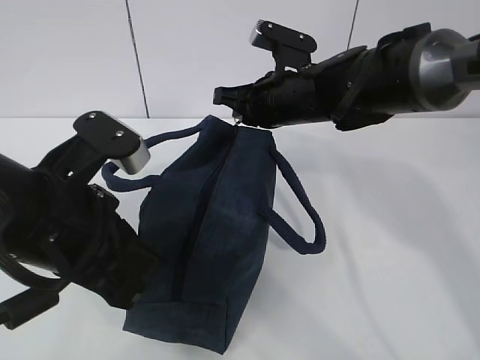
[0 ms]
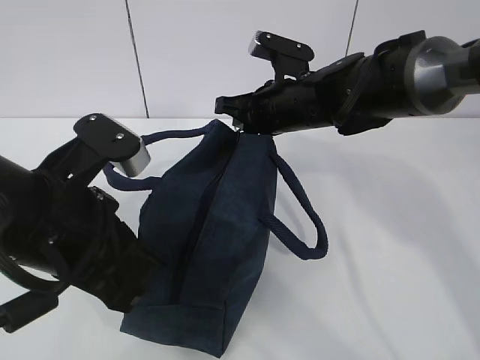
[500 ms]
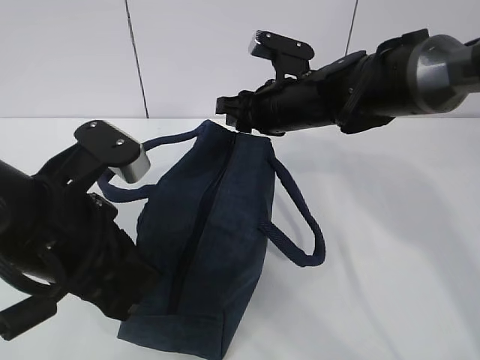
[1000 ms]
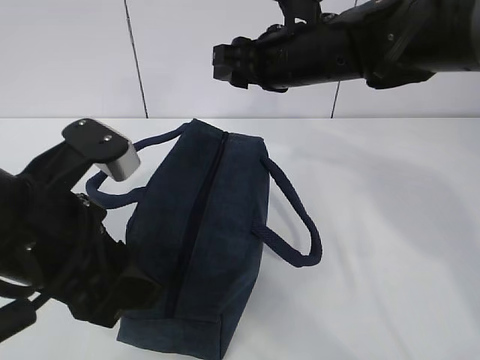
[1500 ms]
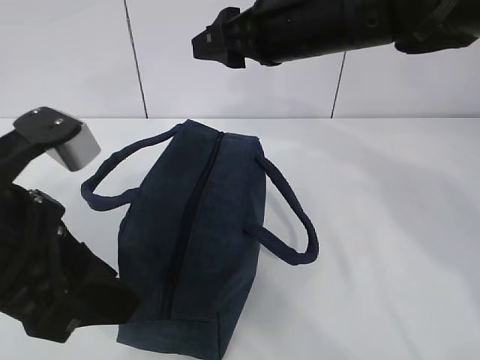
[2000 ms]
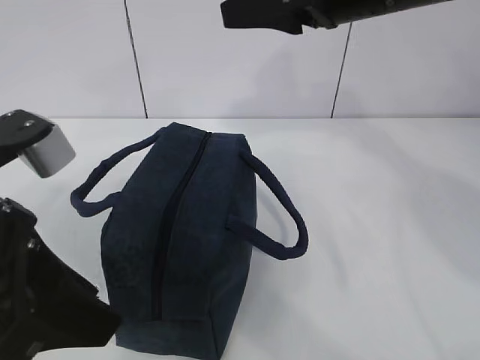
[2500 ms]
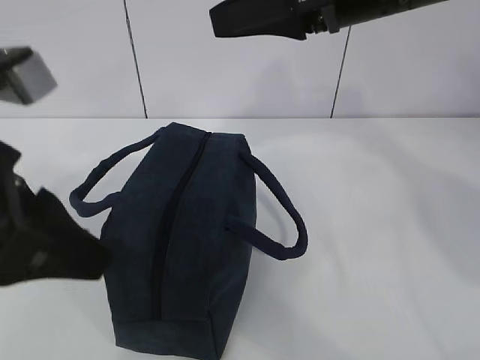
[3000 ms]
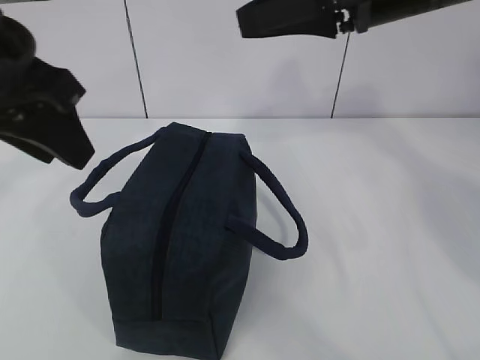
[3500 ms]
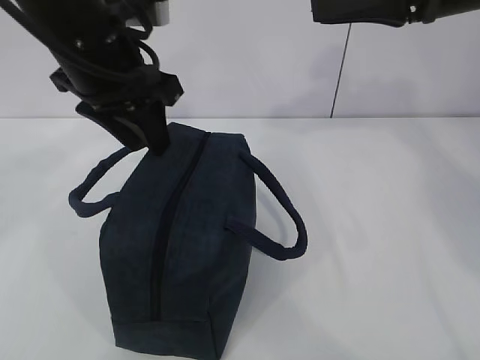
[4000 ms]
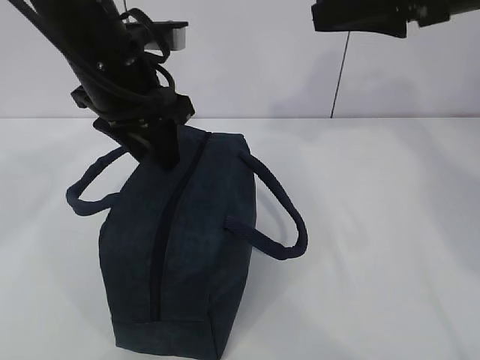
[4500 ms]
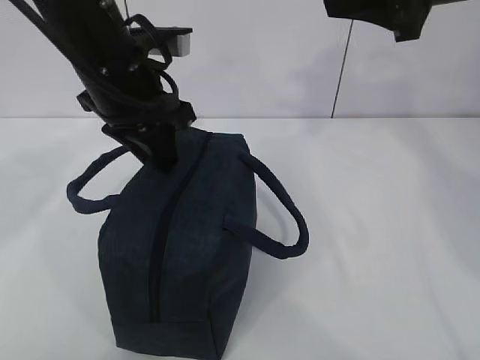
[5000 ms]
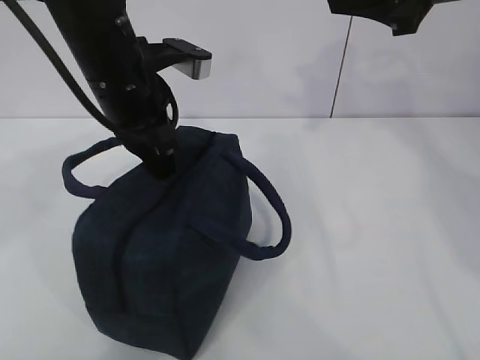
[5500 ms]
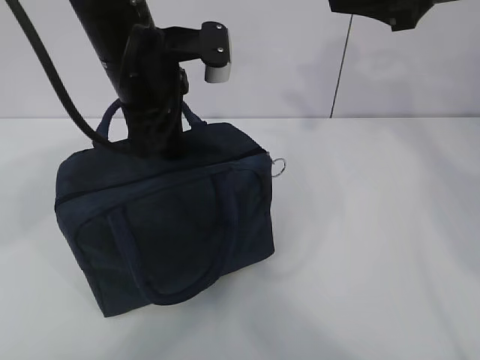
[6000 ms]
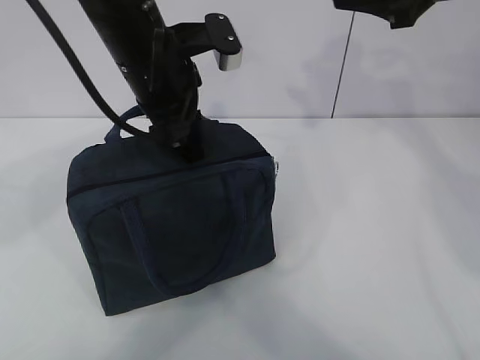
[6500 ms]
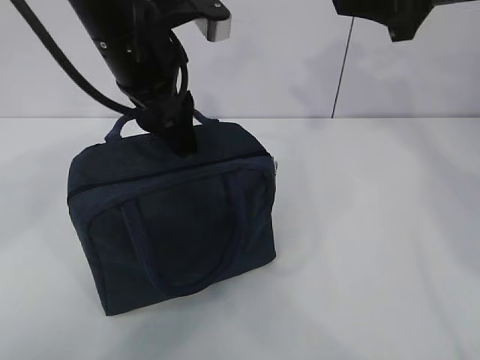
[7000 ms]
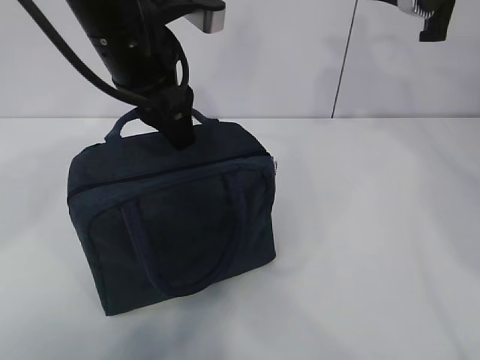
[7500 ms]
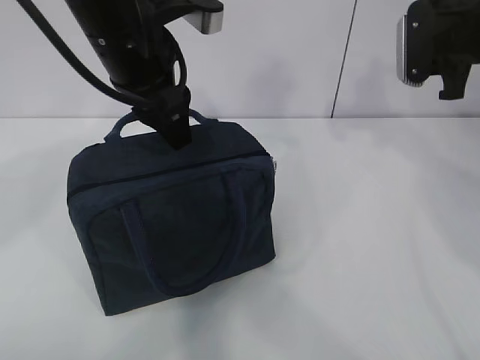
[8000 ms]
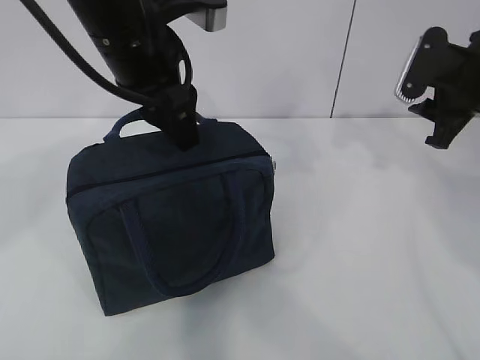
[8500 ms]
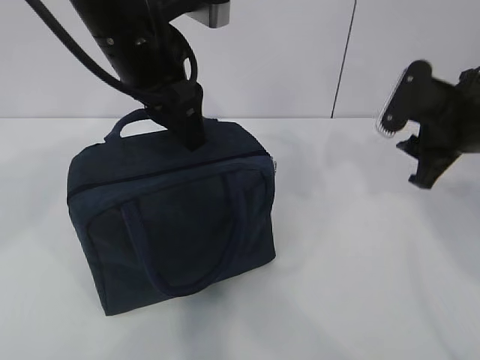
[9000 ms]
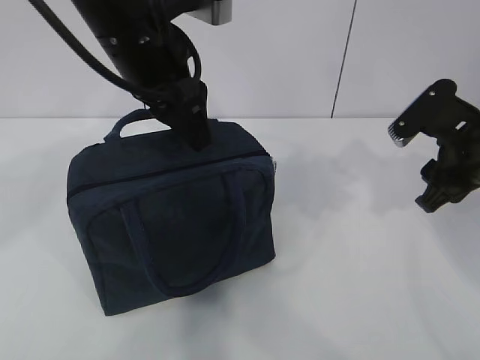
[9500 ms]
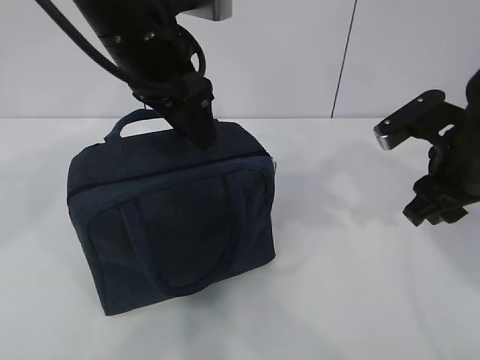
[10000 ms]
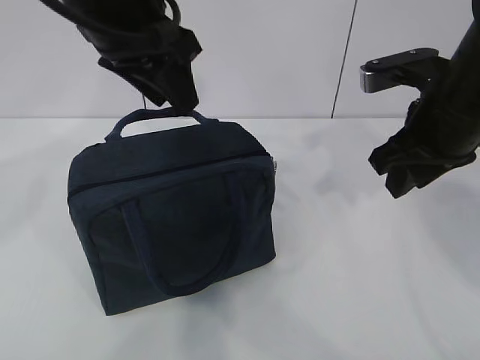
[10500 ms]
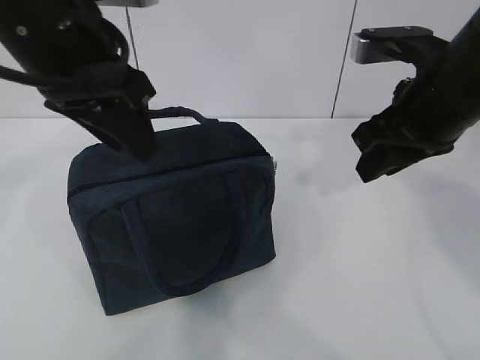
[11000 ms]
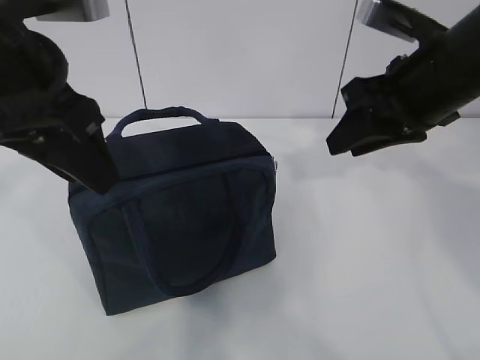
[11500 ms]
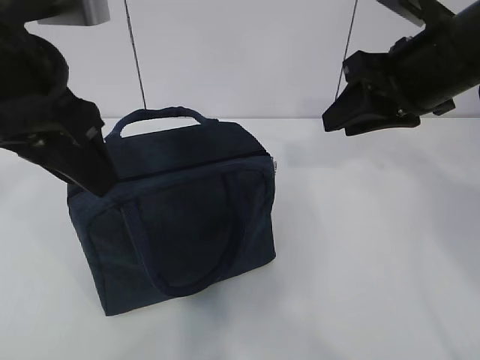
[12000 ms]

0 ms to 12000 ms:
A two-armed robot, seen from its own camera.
0 ms to 2000 ms: The right gripper shifts some 10 cm upward, and opens up. The left gripper ends up approximately 5 cm from where it was, and opens up.
2000 ms to 4000 ms: The left gripper shifts about 15 cm forward. The right gripper shifts some 15 cm to the right and upward.
4000 ms to 6000 ms: The left gripper closes up.
6000 ms to 8000 ms: The right gripper is displaced downward and to the right by approximately 10 cm. The left gripper opens its fingers.
8000 ms to 10000 ms: The right gripper travels backward and downward by roughly 15 cm.
10000 ms to 12000 ms: The right gripper is displaced upward by roughly 10 cm. Meanwhile the left gripper travels backward and to the left by about 10 cm.

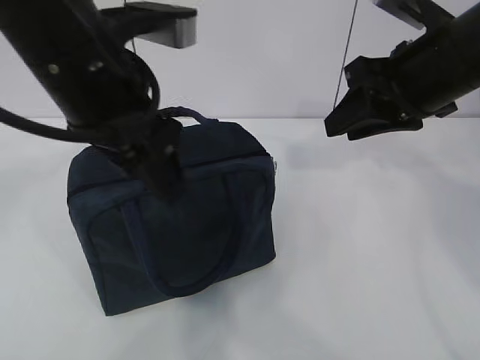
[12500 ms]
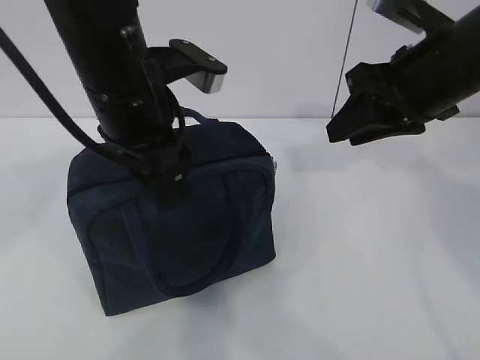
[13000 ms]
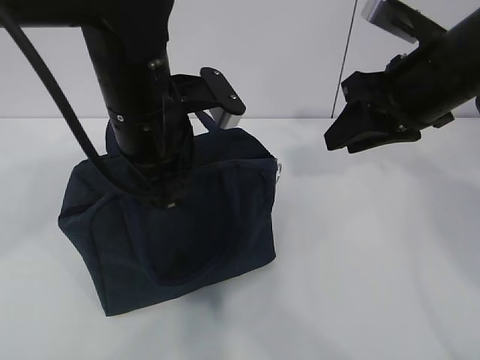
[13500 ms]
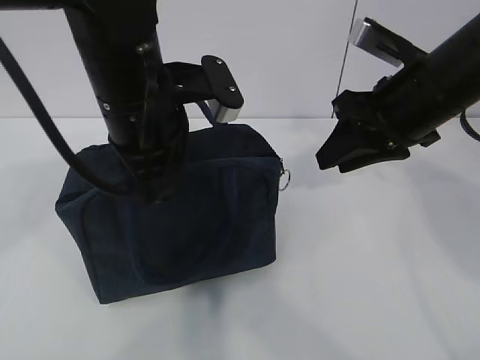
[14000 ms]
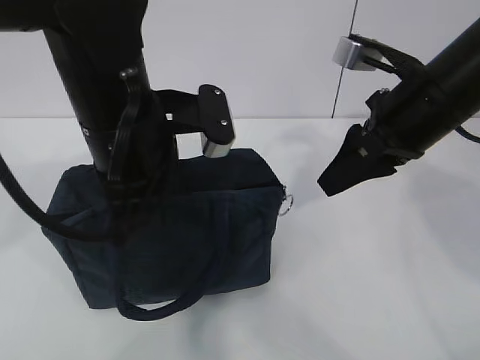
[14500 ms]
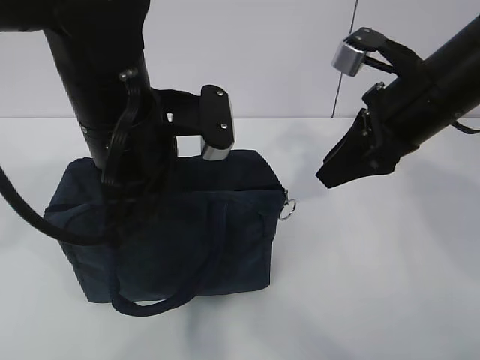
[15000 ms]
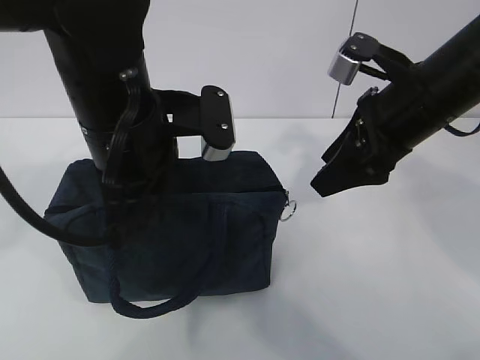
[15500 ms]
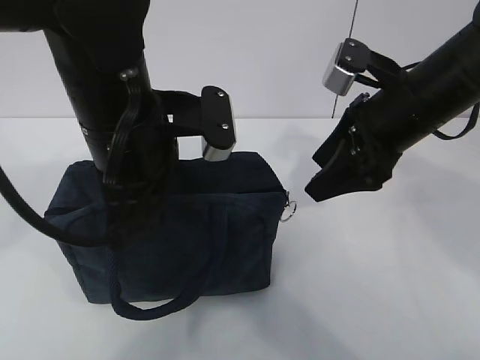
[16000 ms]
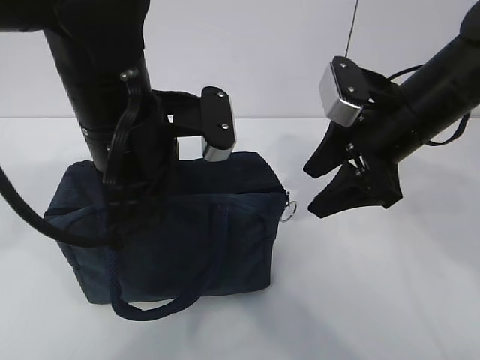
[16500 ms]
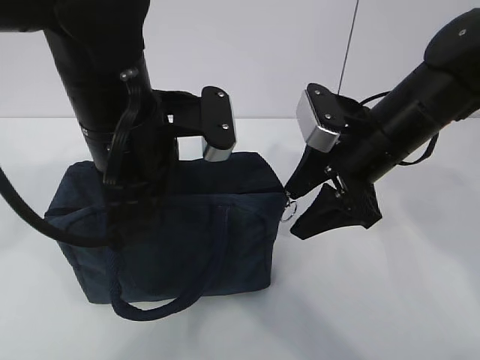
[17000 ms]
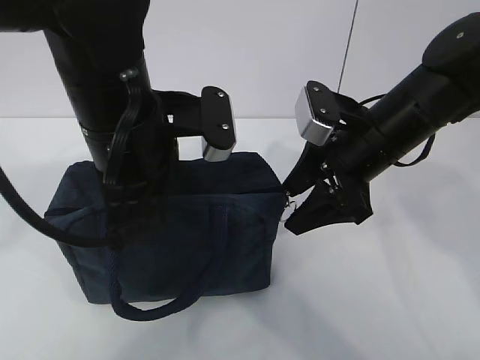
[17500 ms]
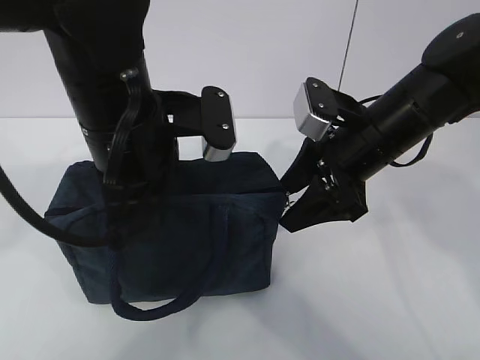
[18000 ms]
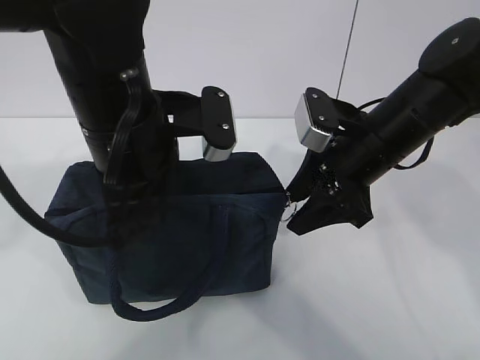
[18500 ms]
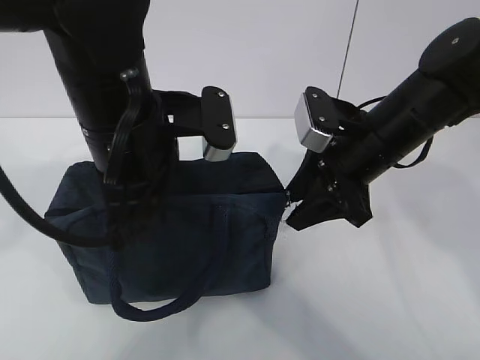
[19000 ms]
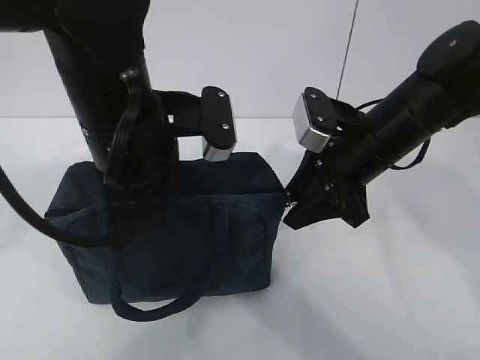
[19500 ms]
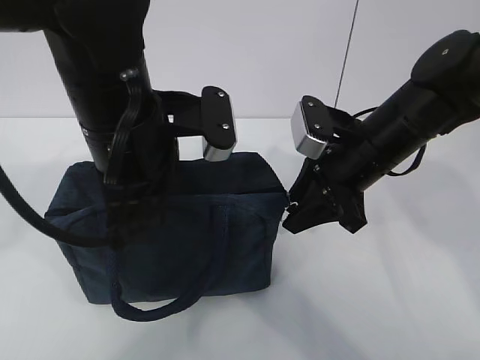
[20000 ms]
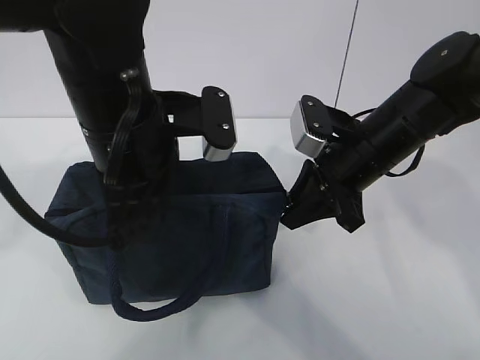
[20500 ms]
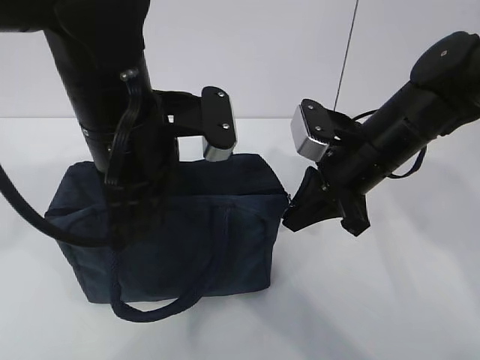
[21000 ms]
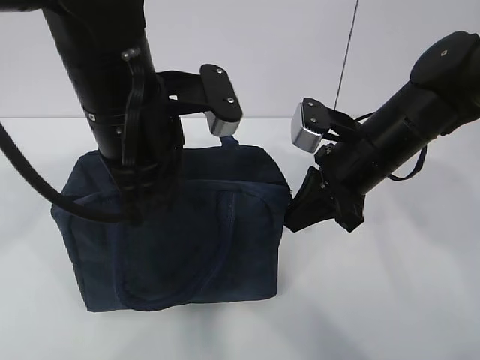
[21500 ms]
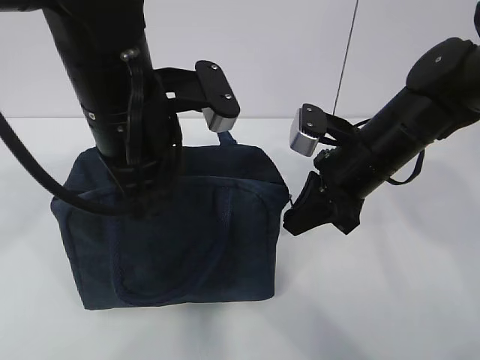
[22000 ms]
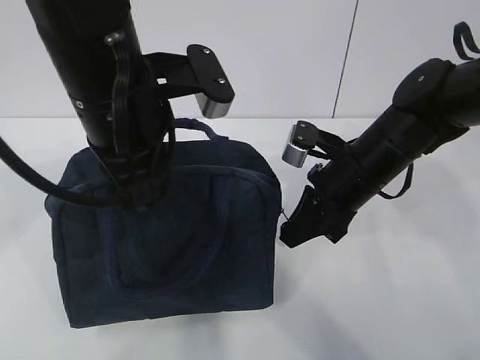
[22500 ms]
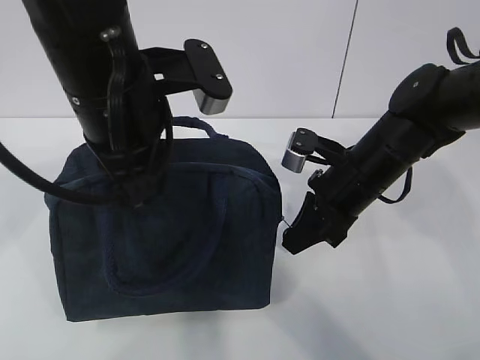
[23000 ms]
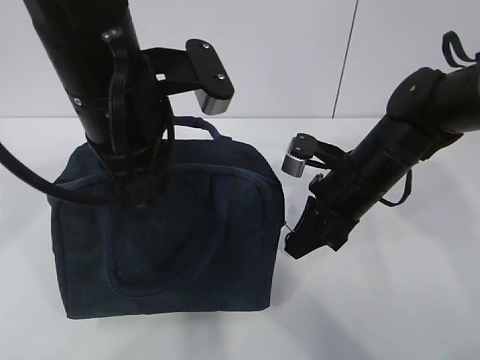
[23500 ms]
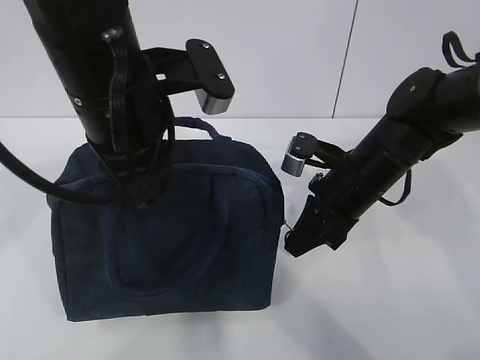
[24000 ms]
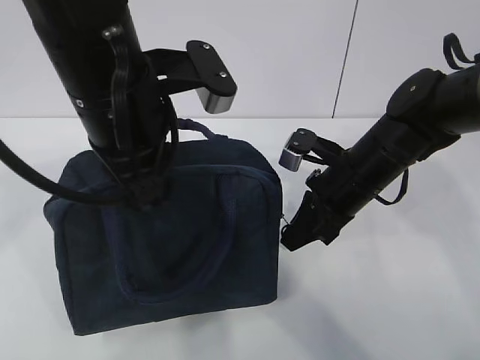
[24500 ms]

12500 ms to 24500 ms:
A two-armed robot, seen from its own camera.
12500 ms to 14500 ms: The left gripper is displaced downward by roughly 5 cm, and closes up.
14500 ms to 16500 ms: The right gripper opens up.
16500 ms to 18500 ms: There are only small adjustments of the grippers.
18500 ms to 20500 ms: The right gripper closes up.
20500 ms to 22500 ms: There are only small adjustments of the grippers.
22500 ms to 24500 ms: The grippers make only small movements.

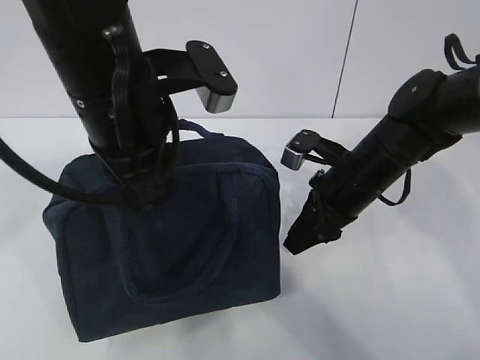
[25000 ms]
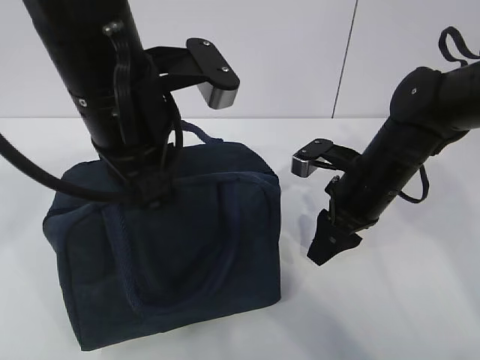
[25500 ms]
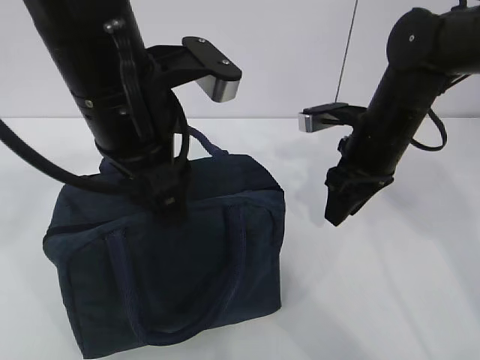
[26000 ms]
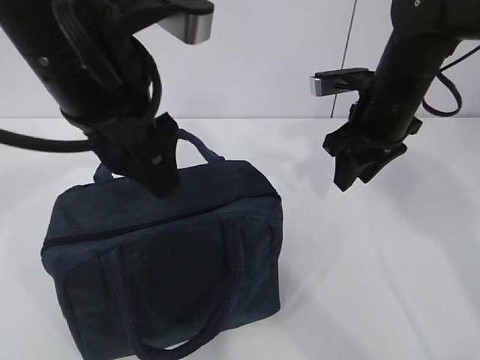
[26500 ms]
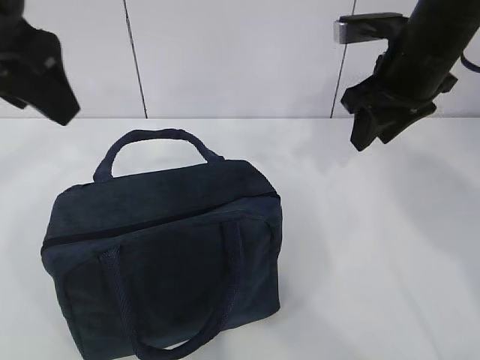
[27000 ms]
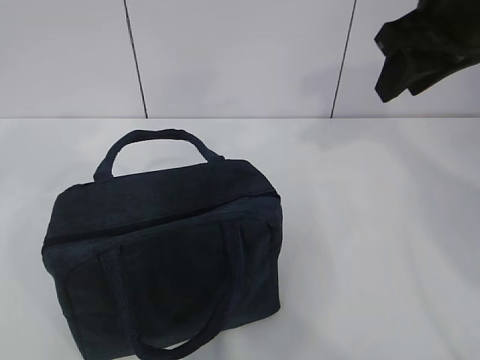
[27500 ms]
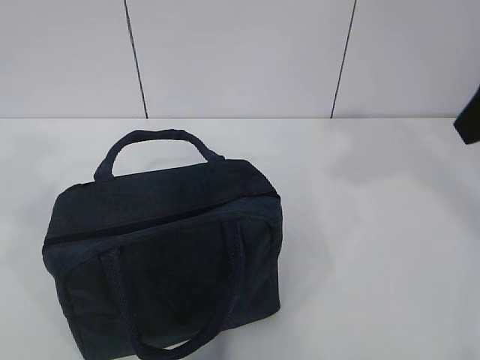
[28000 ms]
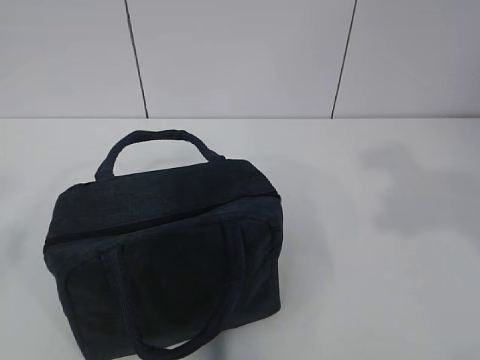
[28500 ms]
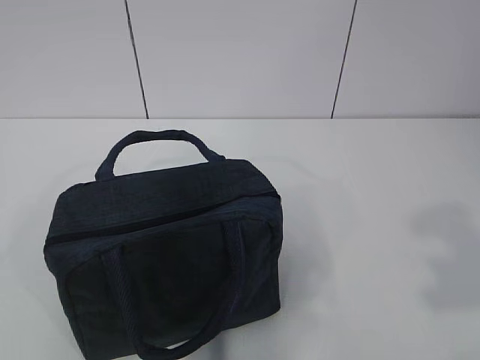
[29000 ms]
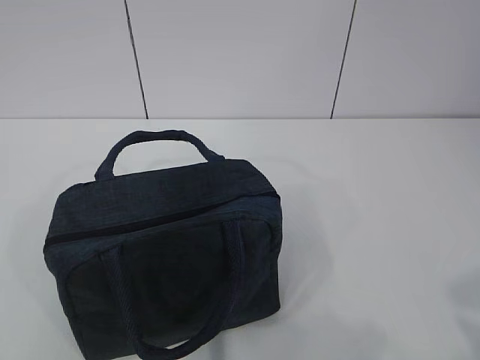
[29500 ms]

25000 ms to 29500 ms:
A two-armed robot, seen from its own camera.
25000 ms to 27000 ms: The right gripper shifts approximately 15 cm upward, while the left gripper goes some 10 cm to the left and upward, and opens up.
27000 ms to 29500 ms: The left gripper shifts about 30 cm backward and to the left. The right gripper moves backward, roughly 40 cm.
